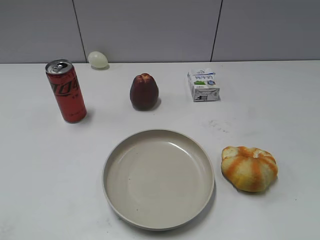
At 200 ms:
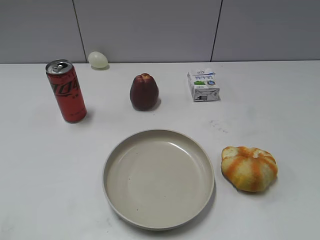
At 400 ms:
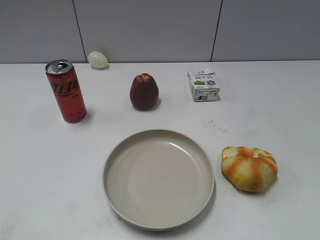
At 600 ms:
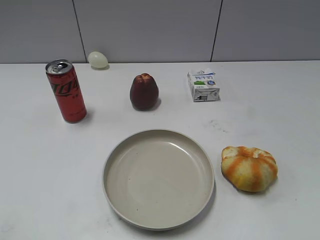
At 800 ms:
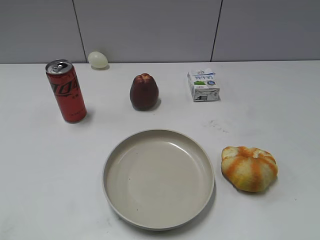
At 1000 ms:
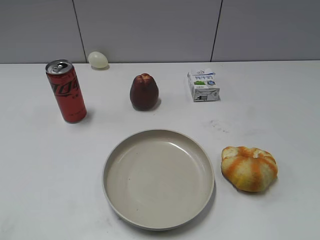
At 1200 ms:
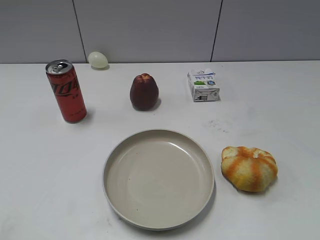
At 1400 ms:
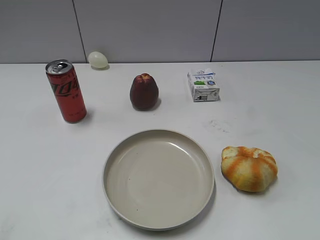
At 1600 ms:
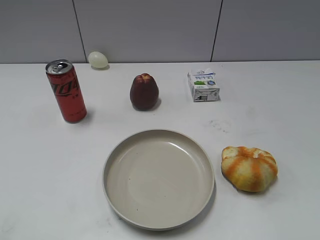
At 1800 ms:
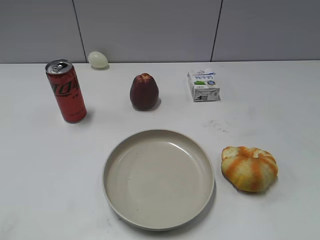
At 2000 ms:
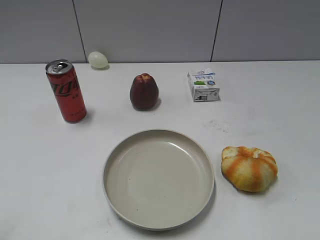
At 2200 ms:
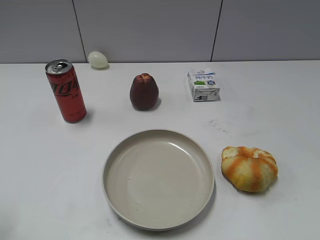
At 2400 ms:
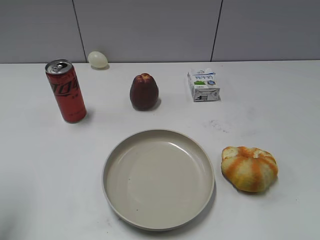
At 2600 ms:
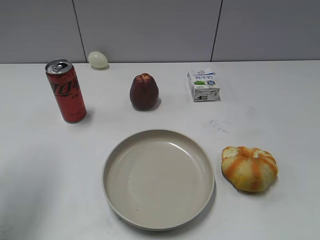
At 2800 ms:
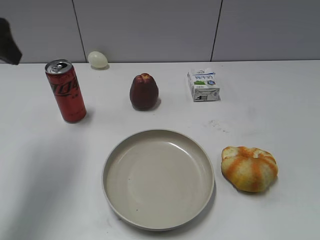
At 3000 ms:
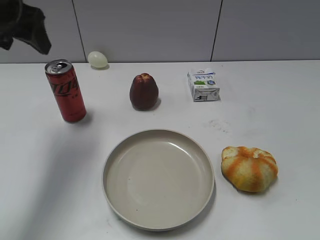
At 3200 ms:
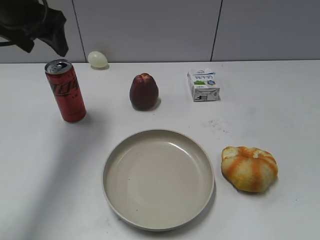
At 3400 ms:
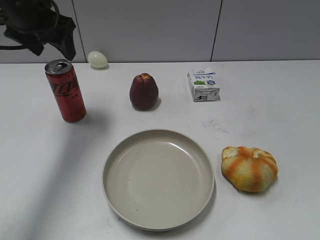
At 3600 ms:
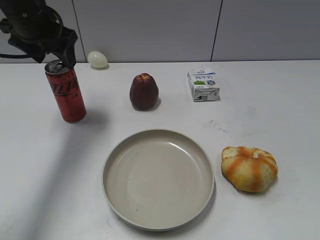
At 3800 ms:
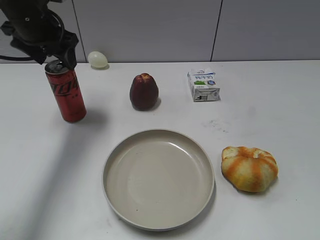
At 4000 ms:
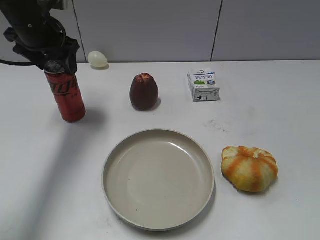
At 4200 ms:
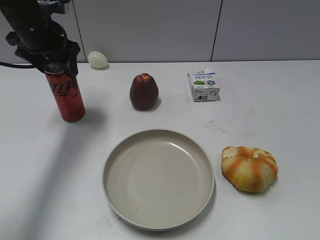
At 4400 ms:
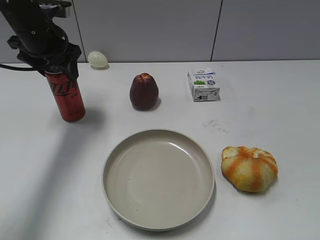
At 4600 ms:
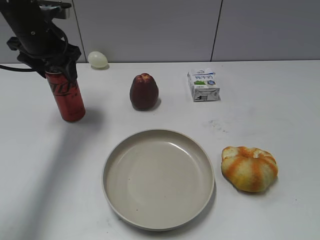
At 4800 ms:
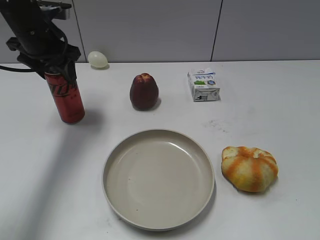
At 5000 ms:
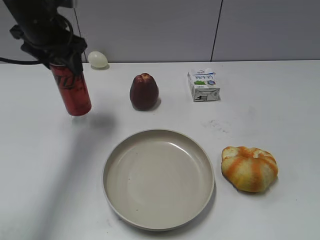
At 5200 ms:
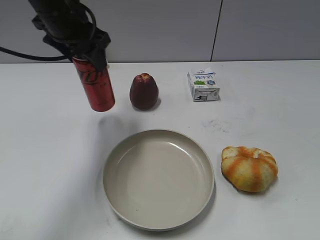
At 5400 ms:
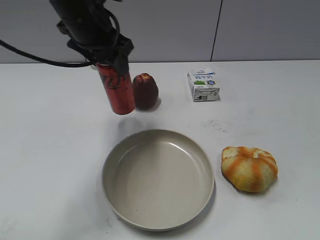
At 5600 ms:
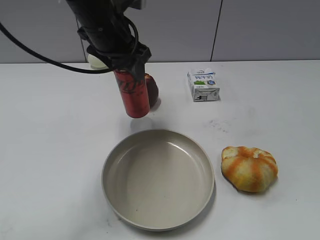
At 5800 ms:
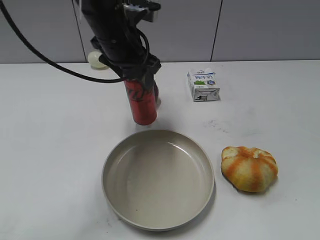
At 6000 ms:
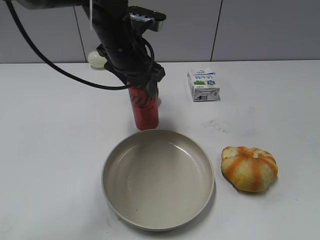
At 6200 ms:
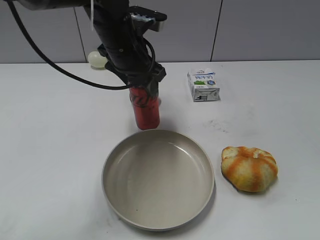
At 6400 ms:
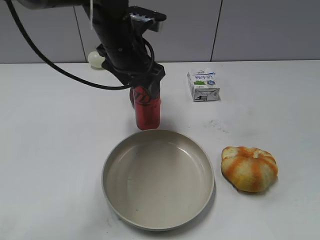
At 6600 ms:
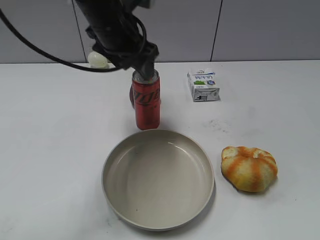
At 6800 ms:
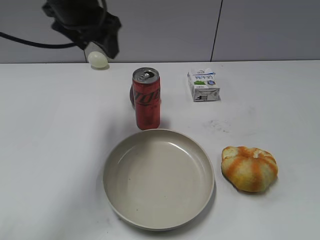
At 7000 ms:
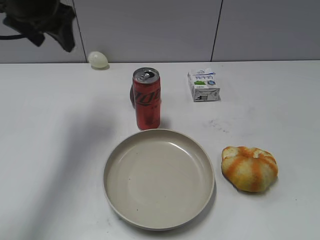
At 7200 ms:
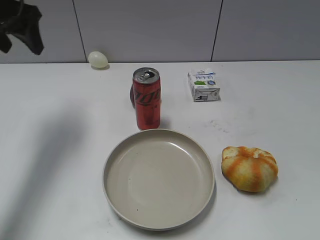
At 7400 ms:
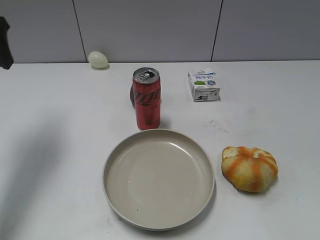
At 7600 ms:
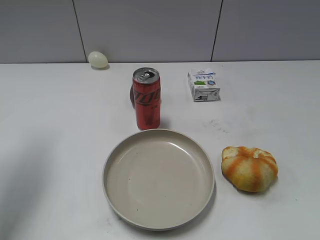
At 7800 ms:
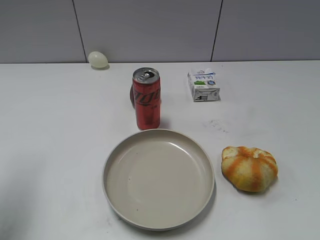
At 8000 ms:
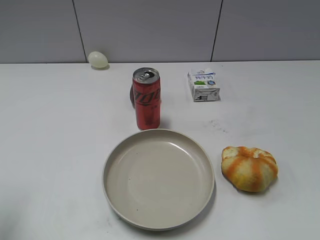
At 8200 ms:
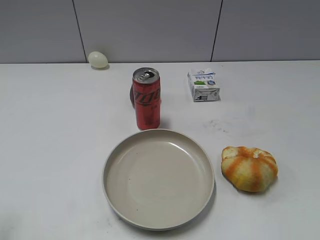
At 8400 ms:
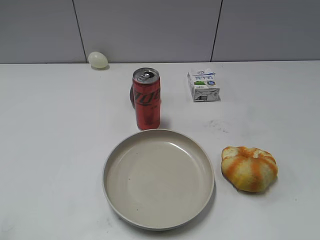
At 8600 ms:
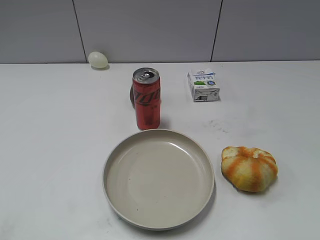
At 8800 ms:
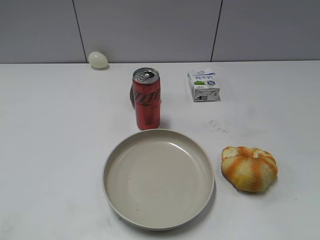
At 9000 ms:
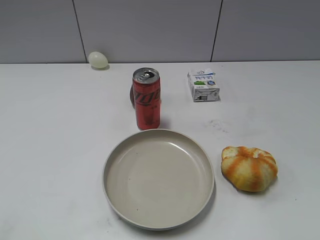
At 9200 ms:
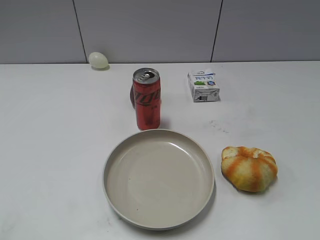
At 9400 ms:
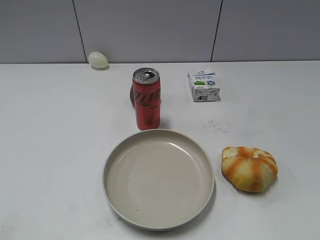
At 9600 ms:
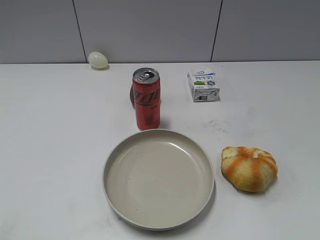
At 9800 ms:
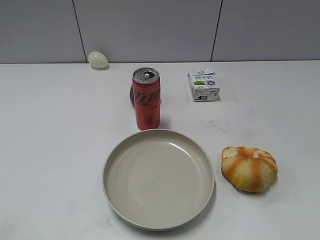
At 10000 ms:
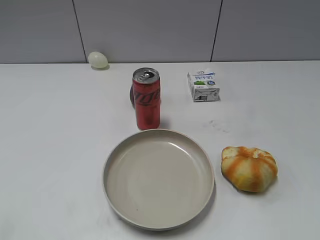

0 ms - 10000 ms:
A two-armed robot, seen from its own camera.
Step, 1600 ms - 4600 ms: Grasp the cola with left gripper.
Step, 4800 ms - 6600 ms: Place the cola on the table with left gripper.
1400 ms - 2800 ms: The left gripper shifts some 30 cm forward, and opens its fingers.
2800 ms - 4200 ms: The left gripper travels forward and downward by about 15 cm.
4200 ms - 5800 ms: The left gripper is displaced to the right by approximately 15 cm, and closes up.
5800 ms - 7200 ms: The left gripper heads to the left, covering approximately 20 cm, and opens.
7200 ms - 8600 ms: The left gripper moves backward, some 35 cm.
